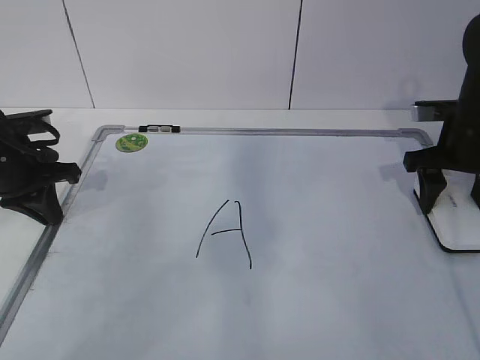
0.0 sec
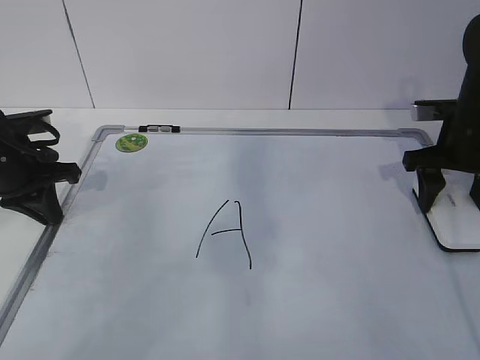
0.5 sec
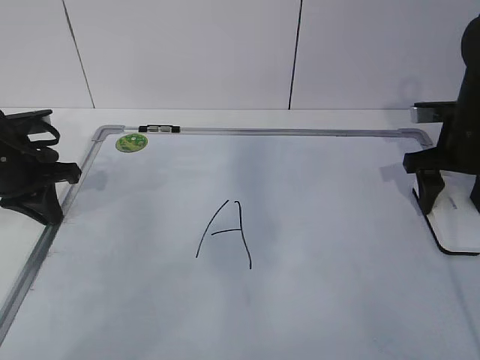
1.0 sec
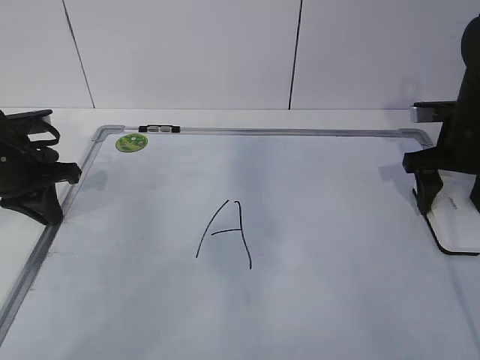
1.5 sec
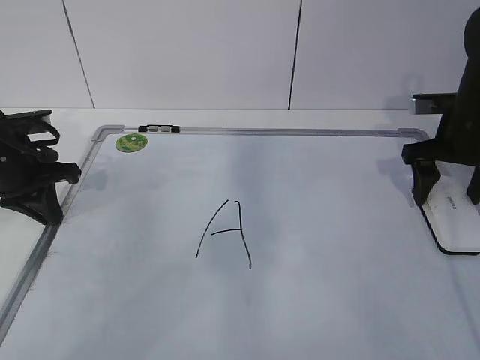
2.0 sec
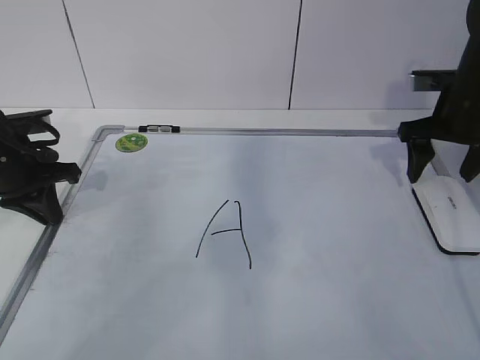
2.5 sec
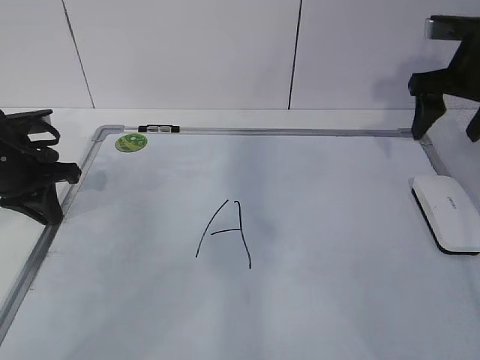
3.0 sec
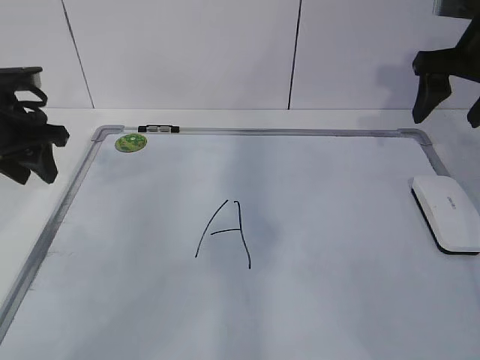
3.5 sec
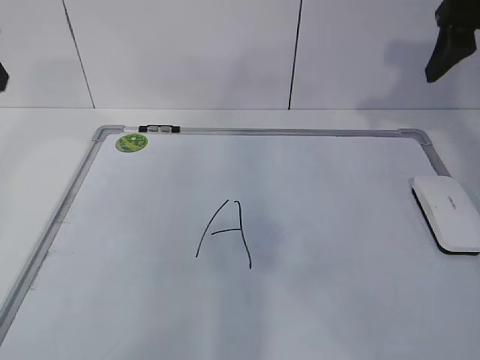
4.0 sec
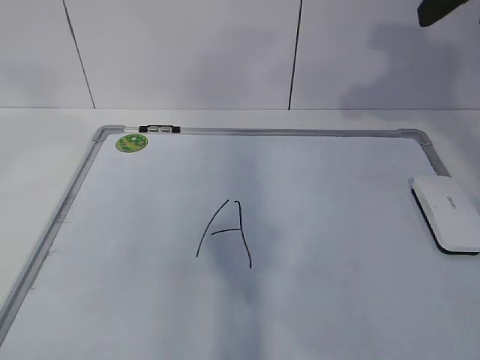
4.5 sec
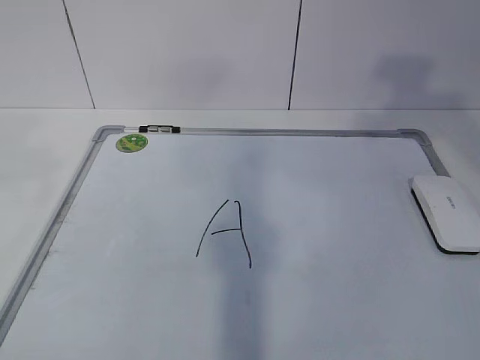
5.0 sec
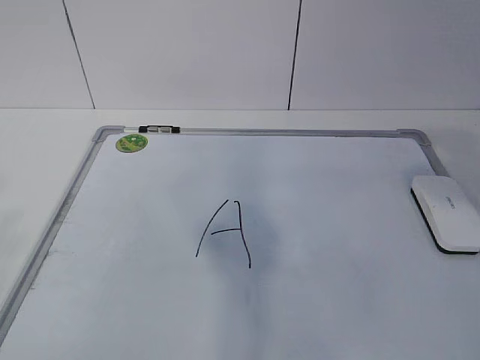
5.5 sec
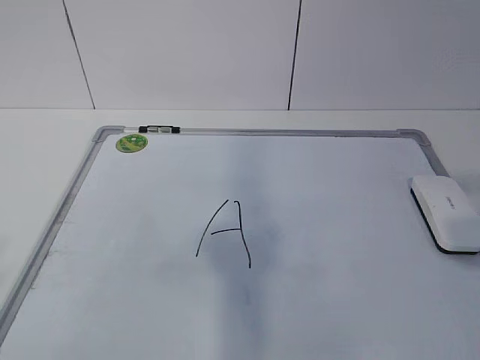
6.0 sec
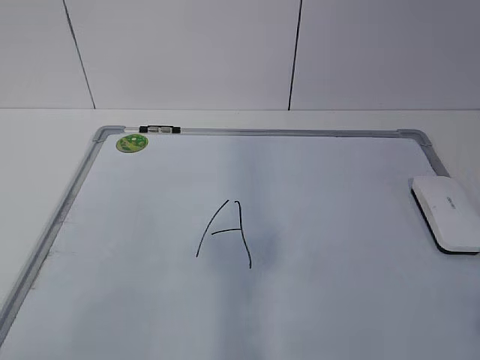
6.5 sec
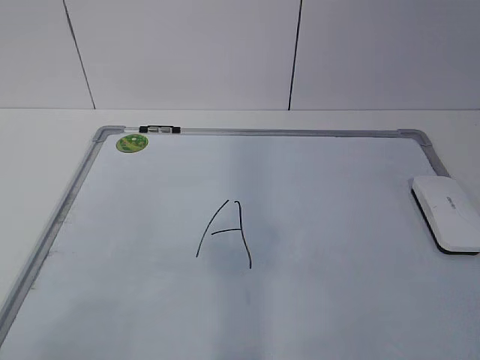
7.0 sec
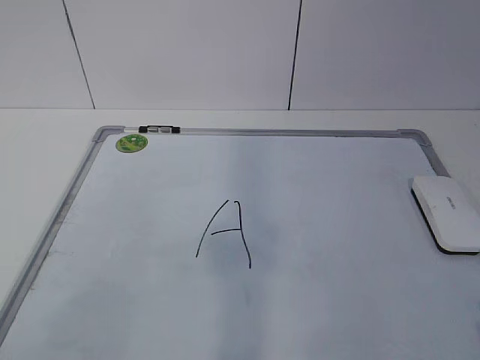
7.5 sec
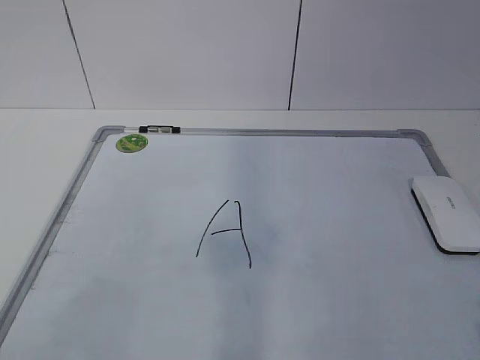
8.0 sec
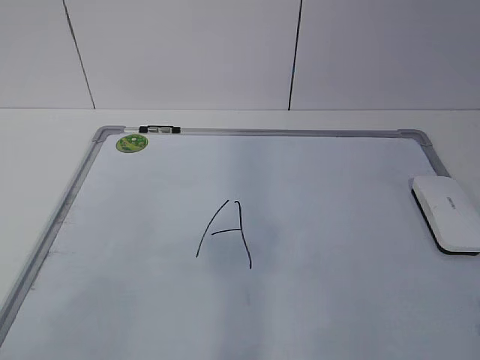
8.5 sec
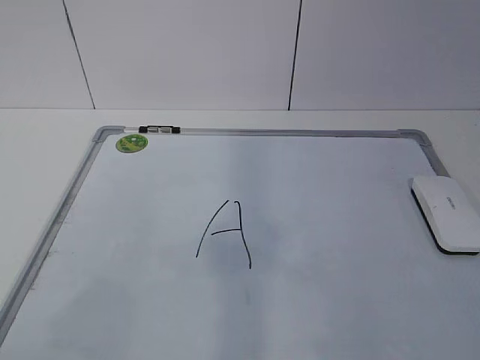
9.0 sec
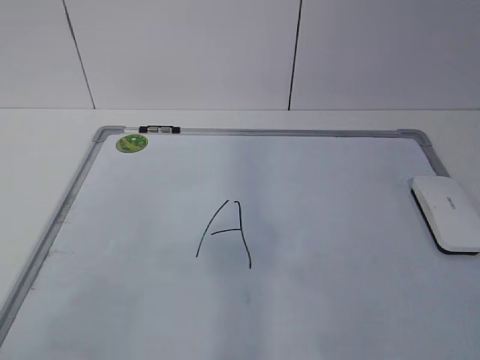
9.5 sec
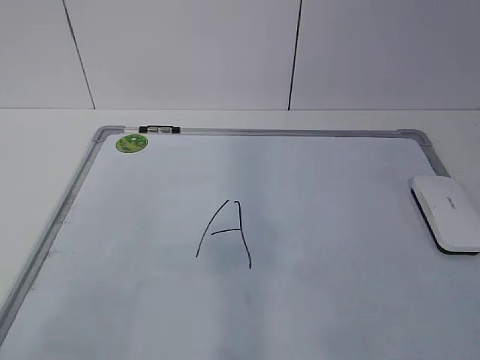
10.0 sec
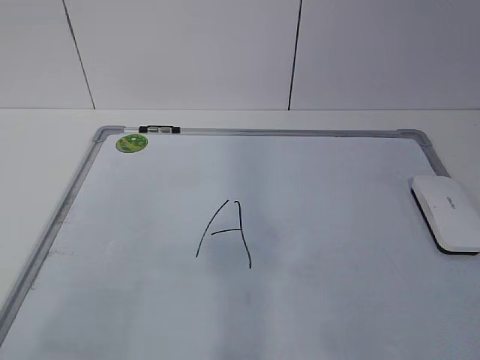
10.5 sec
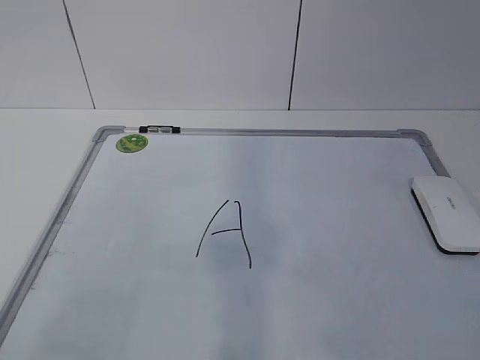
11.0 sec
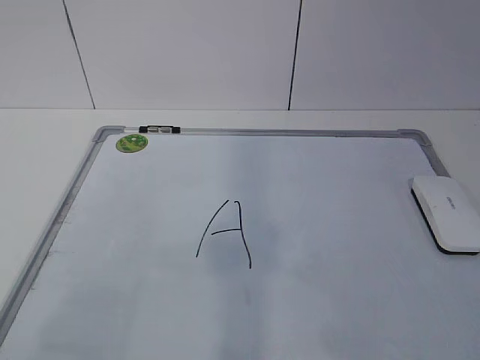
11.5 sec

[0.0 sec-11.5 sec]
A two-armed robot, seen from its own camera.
Task of the whole recording: pick up the eraser on the blackboard and erase the letter "a".
0.0 sec to 2.0 sec: The right gripper opens its fingers.
2.0 sec to 4.0 sec: Both grippers travel together upward, approximately 15 cm. The left gripper opens.
4.0 sec to 6.0 sec: The right gripper travels backward by some 35 cm.

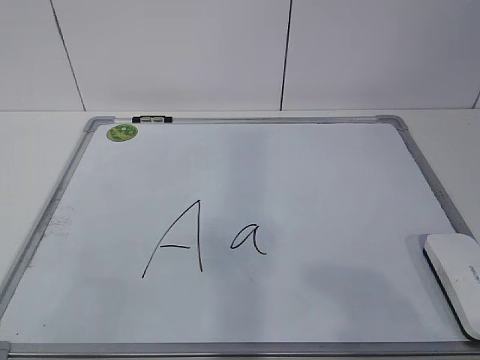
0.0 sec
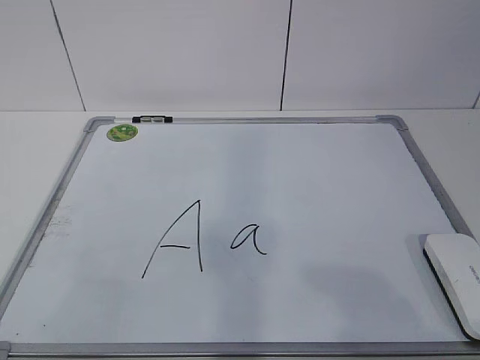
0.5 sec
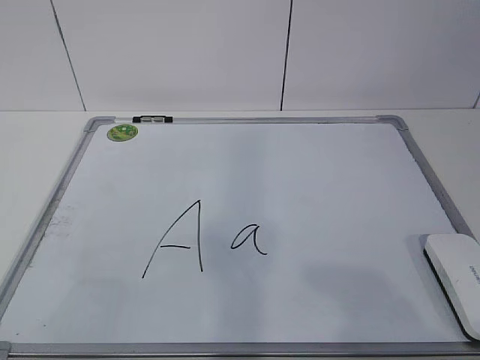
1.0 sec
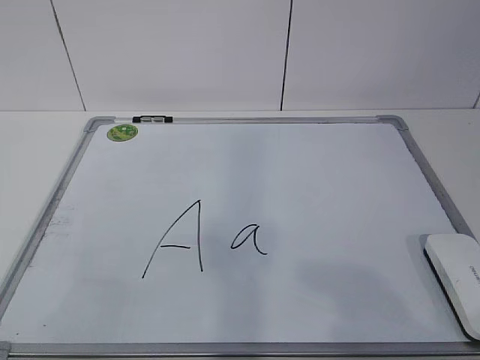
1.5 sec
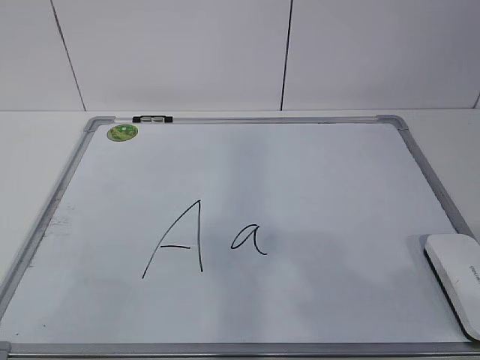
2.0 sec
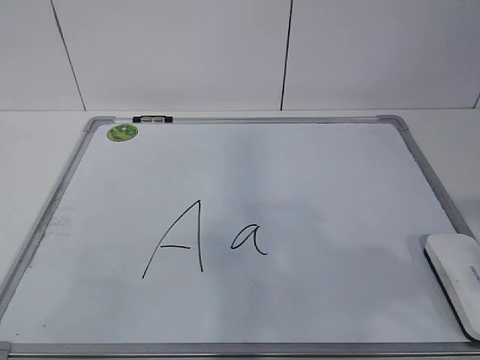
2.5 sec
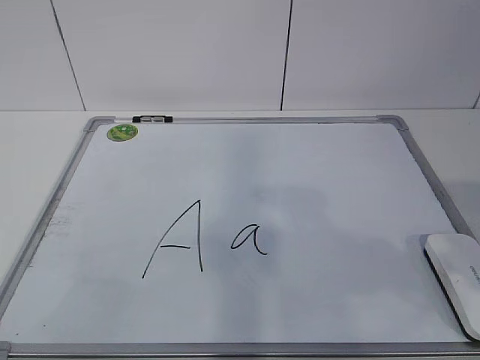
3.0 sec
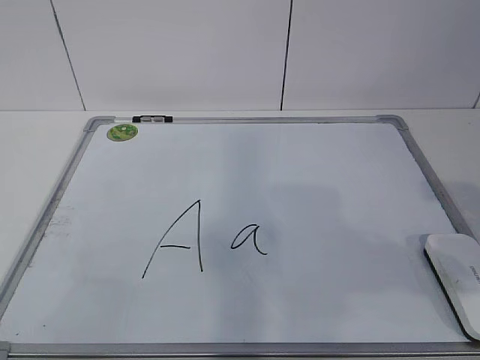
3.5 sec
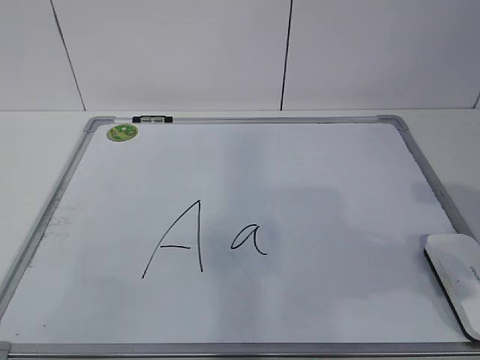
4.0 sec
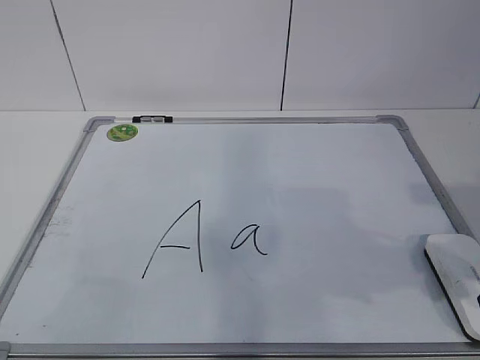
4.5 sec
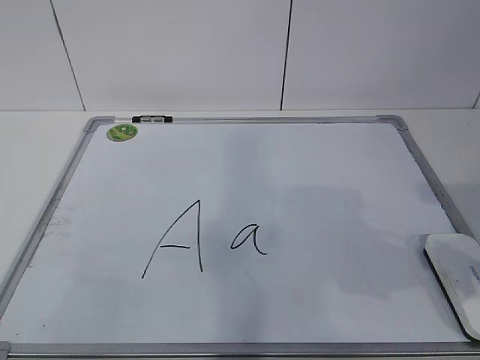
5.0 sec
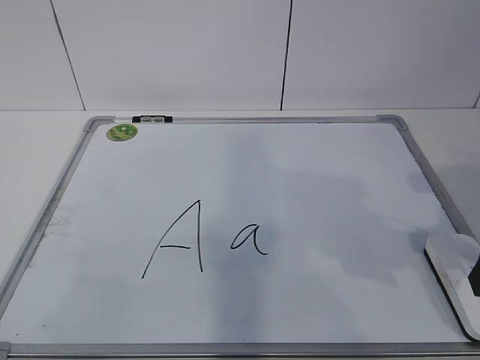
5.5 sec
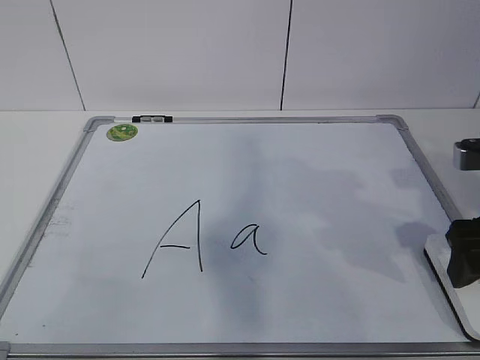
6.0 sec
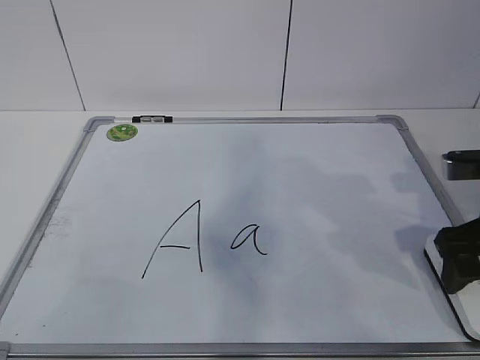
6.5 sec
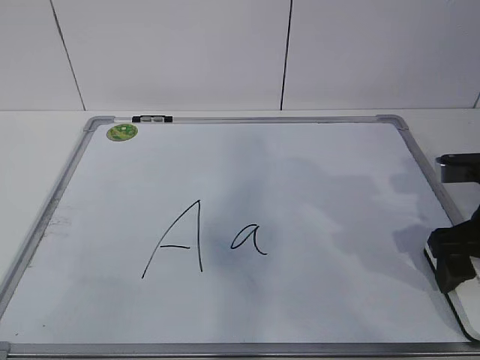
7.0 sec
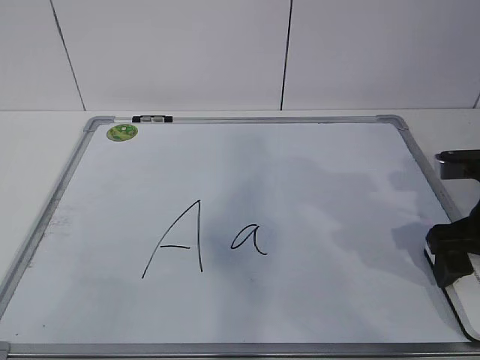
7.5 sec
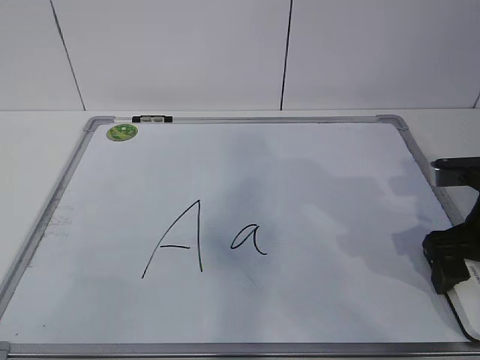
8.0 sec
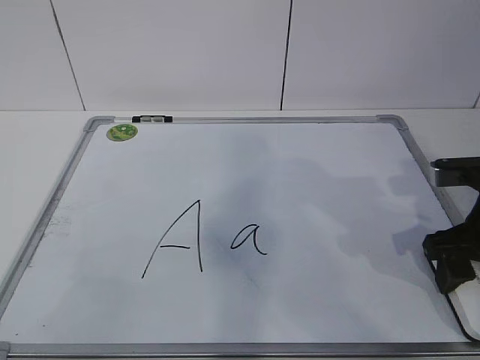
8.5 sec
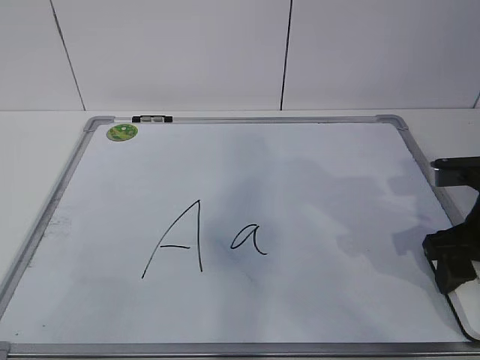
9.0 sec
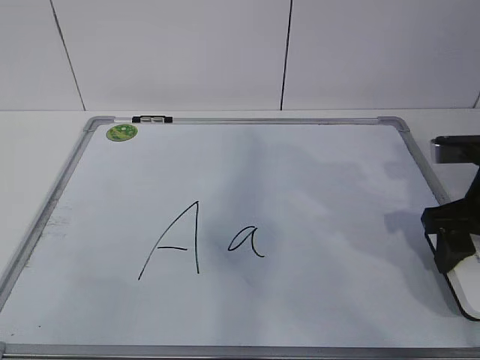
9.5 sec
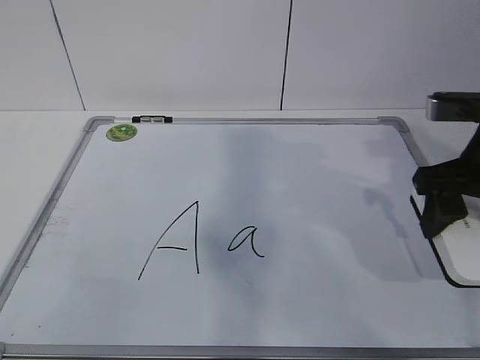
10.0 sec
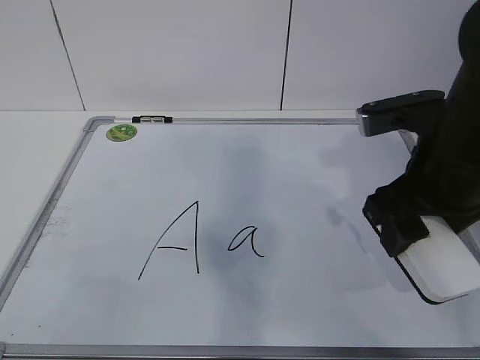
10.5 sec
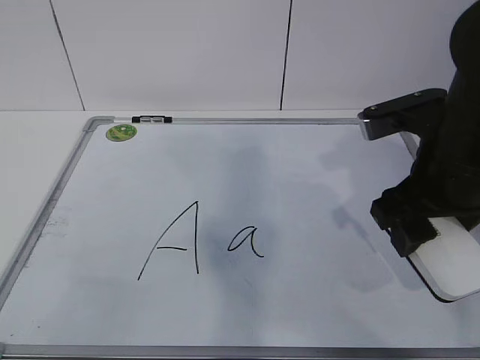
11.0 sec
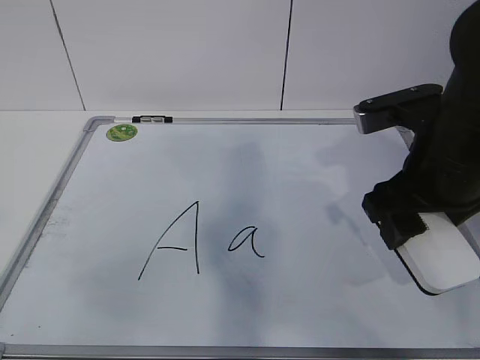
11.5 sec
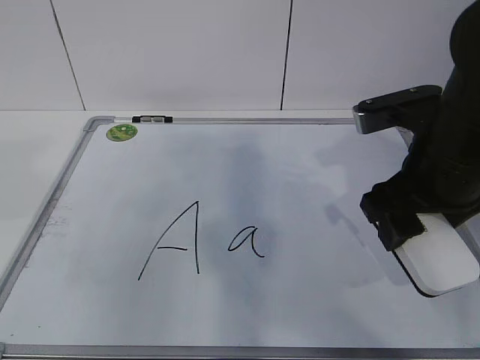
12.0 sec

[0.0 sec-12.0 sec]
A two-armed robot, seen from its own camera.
Task of the whole recording: pick up the eraser on the blackboard and erase the letter "a".
Step, 0.0 sec to 7.5 sec: Grab the eraser with your right hand.
Step, 8.0 sec to 11.5 sec: Hold the drawing board steady with your left hand.
2.0 sec to 4.0 sec: The right gripper travels forward by roughly 10 cm, and opens up.
4.0 sec to 6.0 sec: The right gripper heads forward, covering roughly 10 cm, and opens up.
6.0 sec to 8.0 sec: The grippers move only a little.
8.0 sec to 10.0 sec: The right gripper is displaced upward by about 5 cm, and closes up.
10.0 sec to 12.0 sec: The right gripper heads to the left, covering roughly 5 cm.

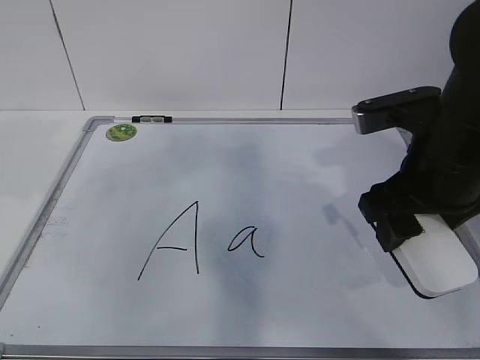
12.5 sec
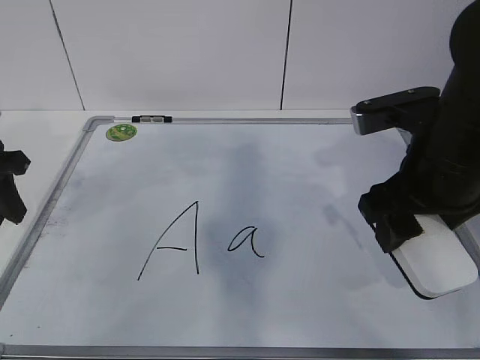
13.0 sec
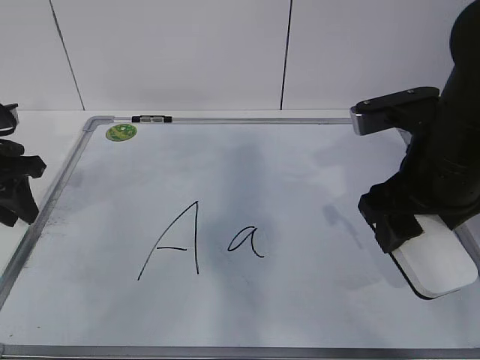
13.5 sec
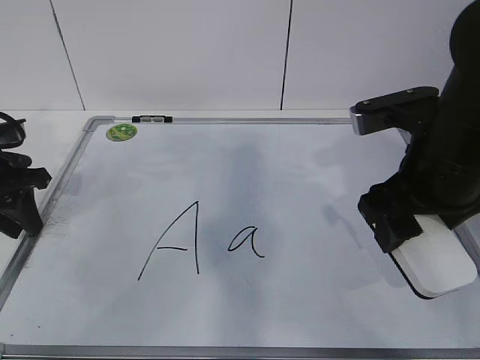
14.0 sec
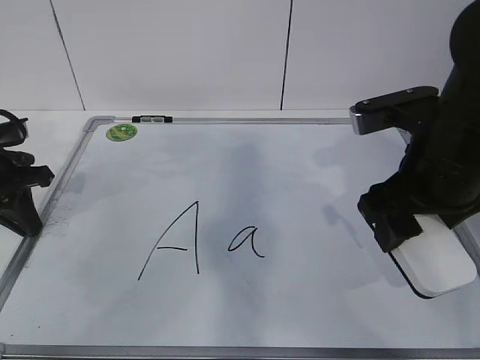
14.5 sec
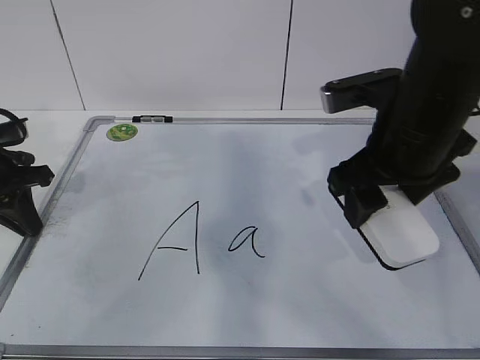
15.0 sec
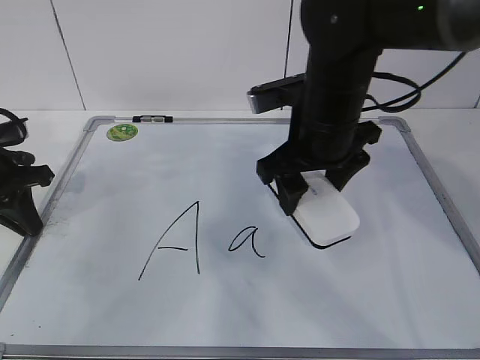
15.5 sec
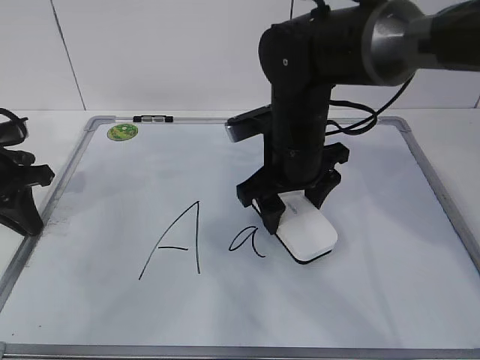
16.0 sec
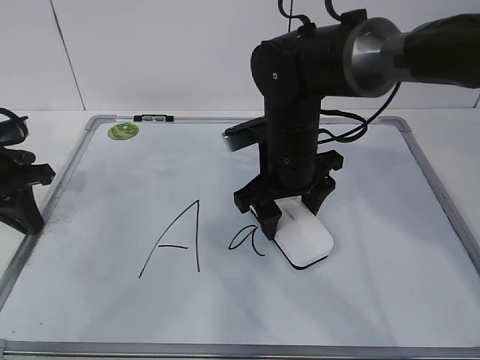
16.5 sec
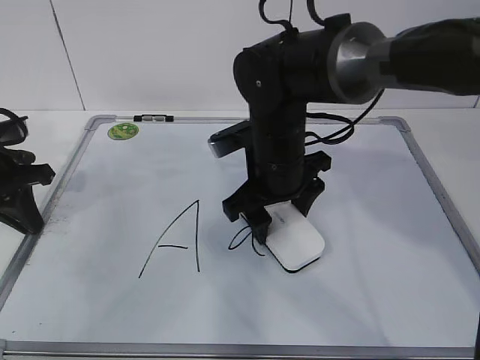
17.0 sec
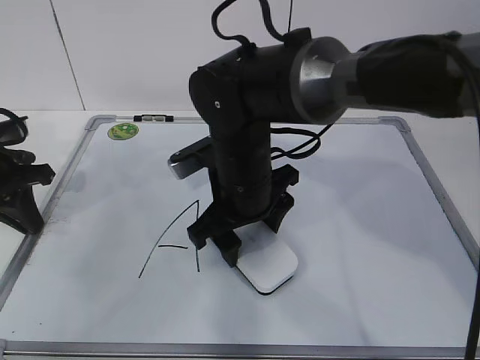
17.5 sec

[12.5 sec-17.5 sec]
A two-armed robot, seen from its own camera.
Task of the whole recording: pick up the eraser on the blackboard and erase the letter "a".
Step, 12.5 sec to 15.5 sec: Erase the letter a with your right hand.
12.5 sec to 15.0 sec: The left gripper moves downward and forward, about 15 cm, and closes its fingers.
15.0 sec to 17.5 sec: The right gripper heads to the left and downward, covering roughly 15 cm.
